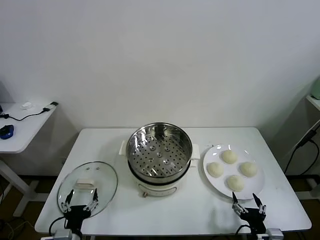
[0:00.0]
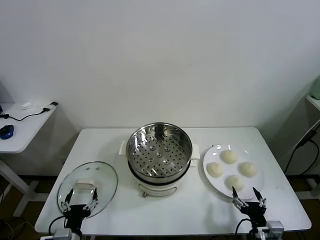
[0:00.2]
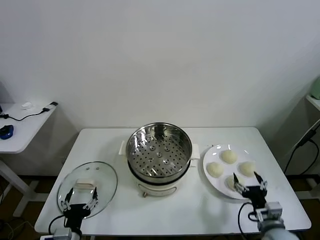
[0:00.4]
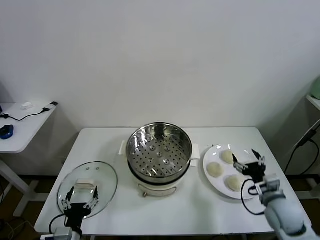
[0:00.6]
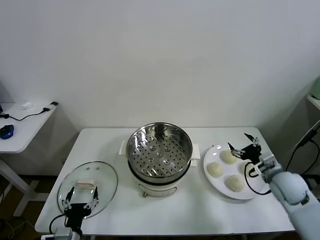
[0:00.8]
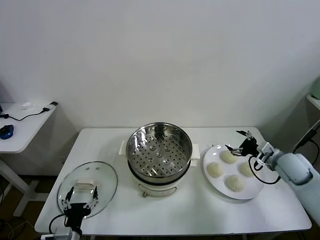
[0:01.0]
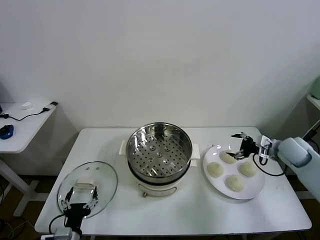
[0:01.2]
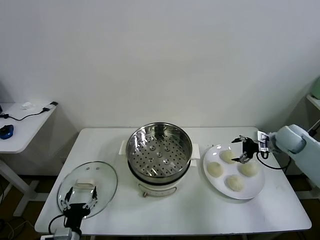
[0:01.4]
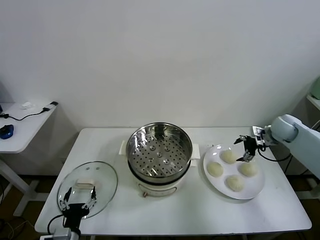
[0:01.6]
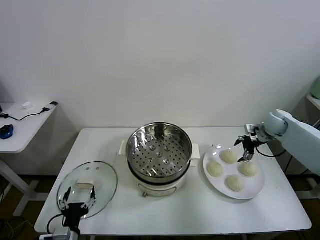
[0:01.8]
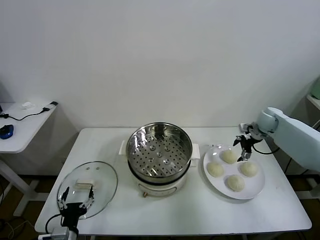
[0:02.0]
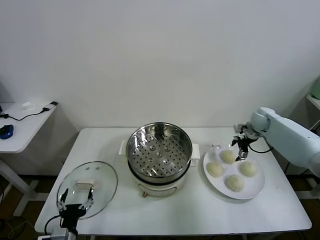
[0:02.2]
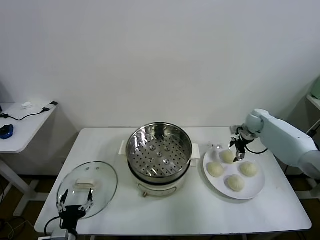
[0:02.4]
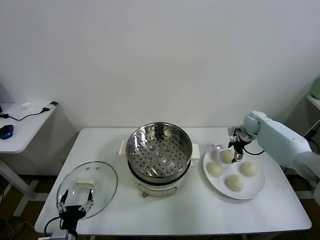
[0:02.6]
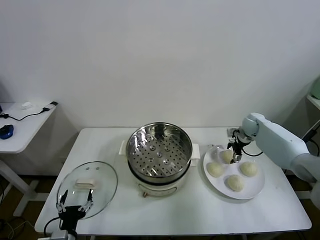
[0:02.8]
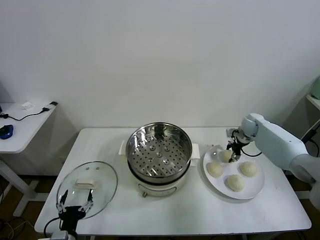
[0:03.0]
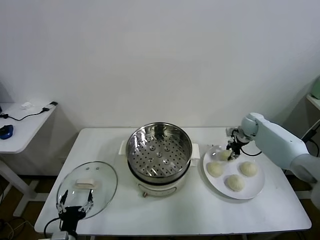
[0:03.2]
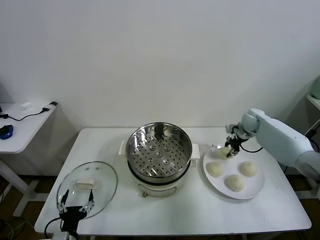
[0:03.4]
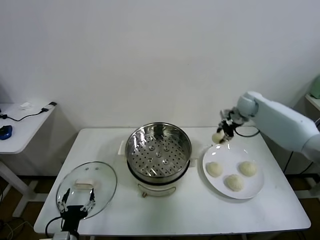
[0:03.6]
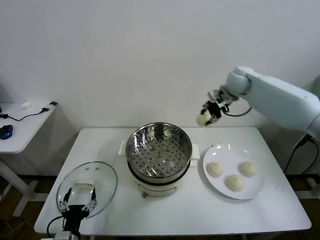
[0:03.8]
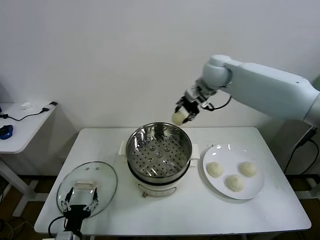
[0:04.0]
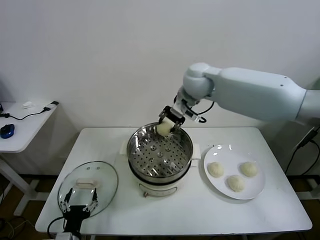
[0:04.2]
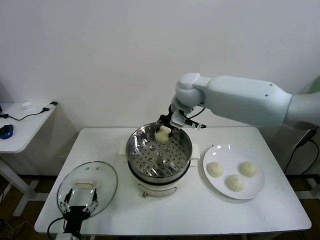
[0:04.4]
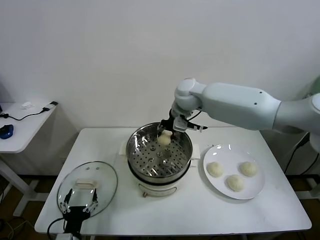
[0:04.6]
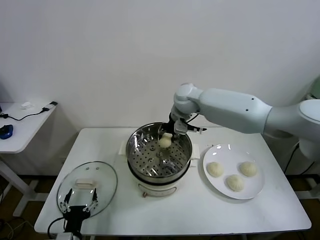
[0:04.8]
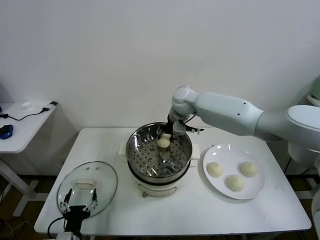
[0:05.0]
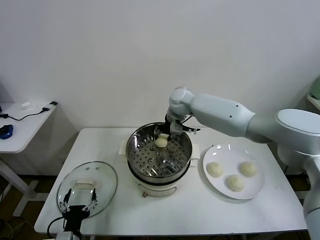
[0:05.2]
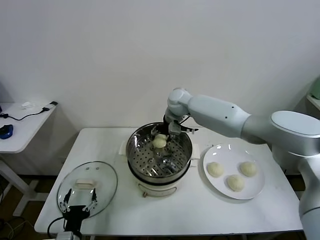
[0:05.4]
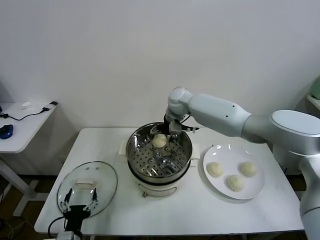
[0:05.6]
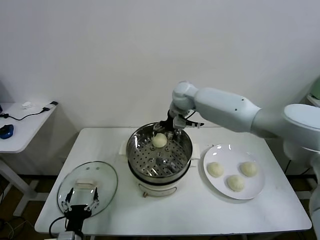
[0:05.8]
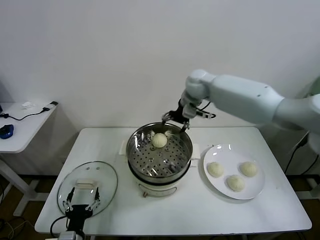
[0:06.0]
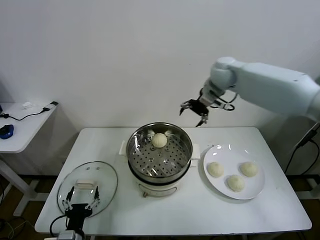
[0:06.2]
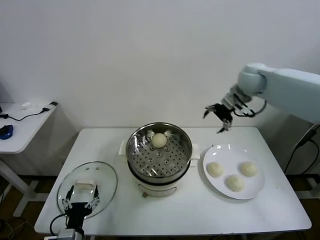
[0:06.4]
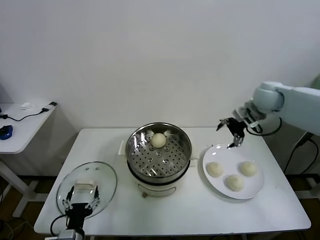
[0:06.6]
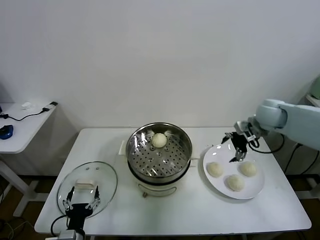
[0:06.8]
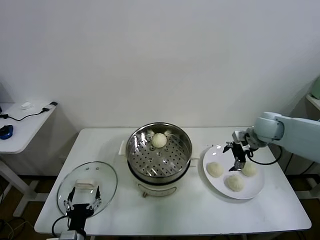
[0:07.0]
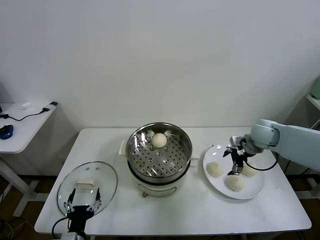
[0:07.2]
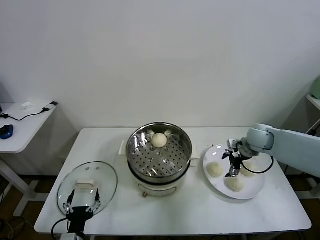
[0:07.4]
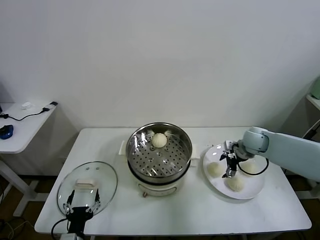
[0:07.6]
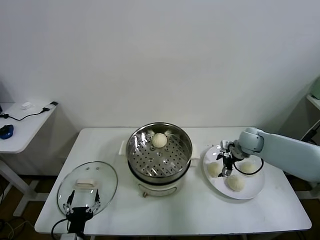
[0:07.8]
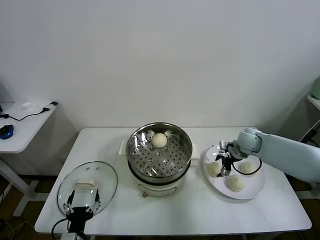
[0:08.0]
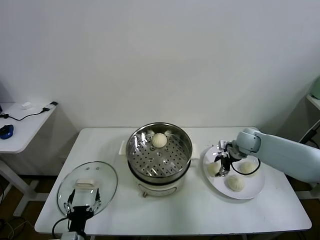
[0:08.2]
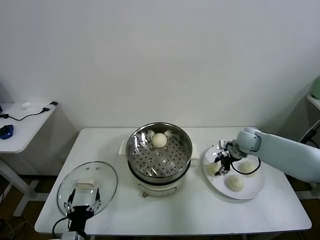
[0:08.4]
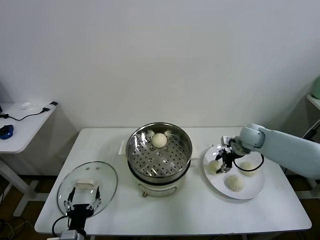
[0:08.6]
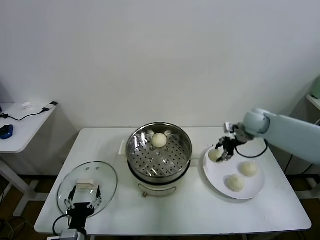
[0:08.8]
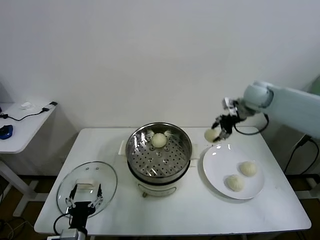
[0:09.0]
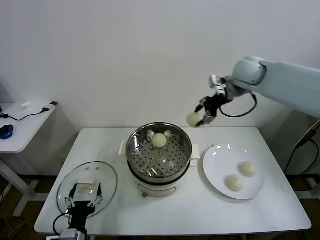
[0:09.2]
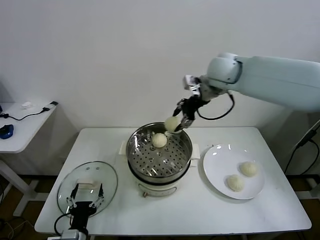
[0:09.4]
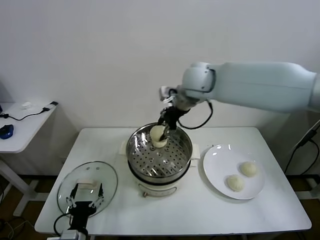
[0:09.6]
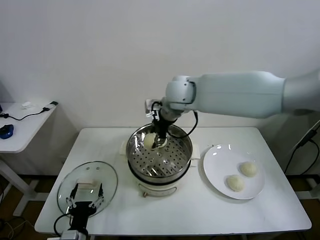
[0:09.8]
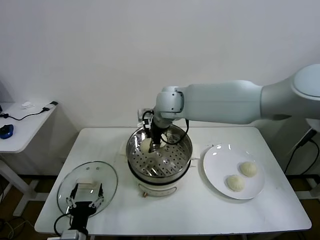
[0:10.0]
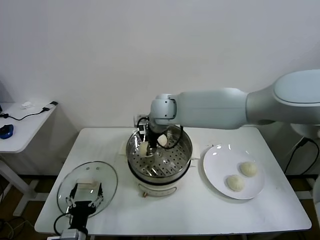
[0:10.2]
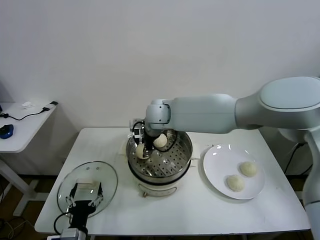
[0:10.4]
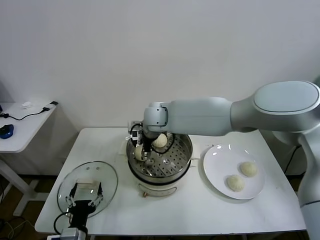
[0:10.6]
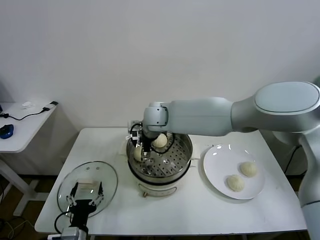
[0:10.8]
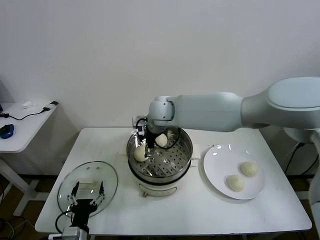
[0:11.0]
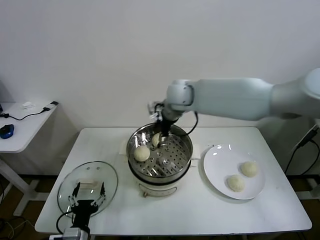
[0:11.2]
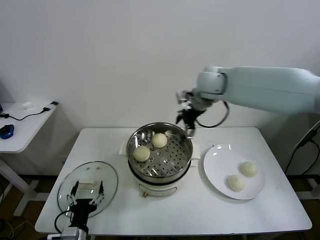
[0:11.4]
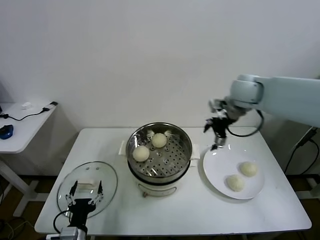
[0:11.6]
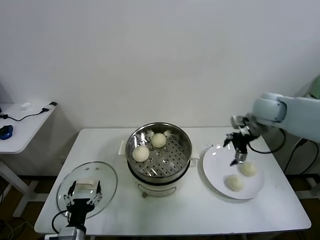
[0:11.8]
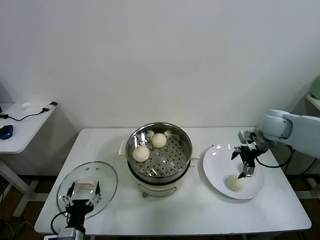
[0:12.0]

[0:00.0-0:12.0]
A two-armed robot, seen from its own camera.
Task of the whole recording: take steamed baozi put them in steamer.
Step, 0:00.0 to 0:03.0: Grasp the baozi in the plate with right gripper.
Step, 0:03.2 to 0:05.6: Place the baozi on the steamer with right gripper.
Step, 0:05.8 to 0:08.2: Grasp the baozi in the plate with right gripper.
Step, 0:08.6 to 0:10.8: Place the baozi on the steamer with right gripper.
0:01.6 to 0:03.0: The right gripper shifts roughly 10 cm forward, downward and to the left, and closes.
0:03.0 to 0:04.4: The right gripper heads to the left and upward, covering approximately 35 cm.
0:04.4 to 0:06.0: The right gripper shifts some 10 cm to the right and forward, reaches some 10 cm downward, then returns, and opens its fingers.
0:06.0 to 0:07.6: The right gripper moves downward, to the right and backward, about 30 cm.
0:07.6 to 0:09.0: The right gripper goes some 20 cm upward, and closes its fingers.
0:09.0 to 0:10.4: The right gripper shifts approximately 30 cm to the left.
0:10.4 to 0:12.0: The right gripper moves to the right, approximately 40 cm, and opens up.

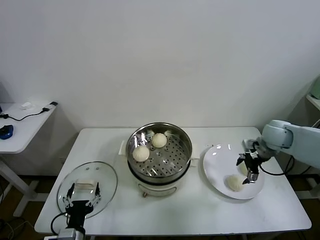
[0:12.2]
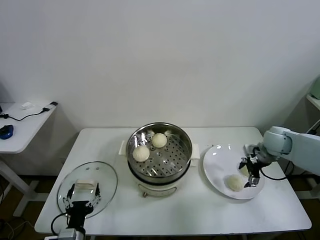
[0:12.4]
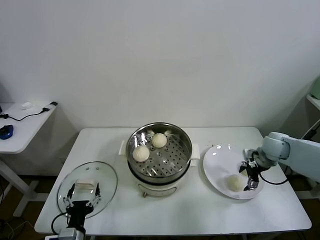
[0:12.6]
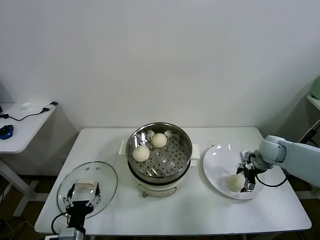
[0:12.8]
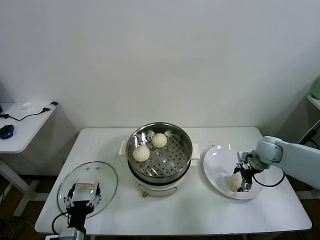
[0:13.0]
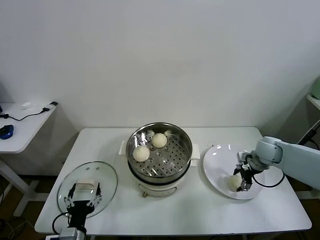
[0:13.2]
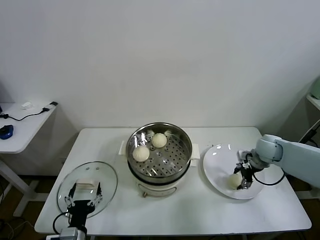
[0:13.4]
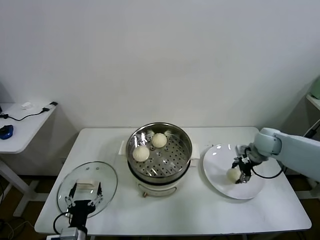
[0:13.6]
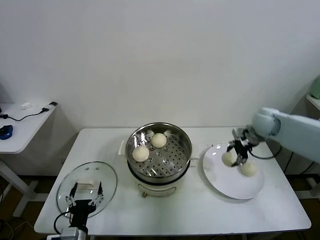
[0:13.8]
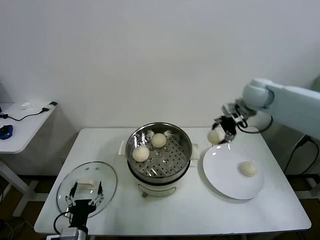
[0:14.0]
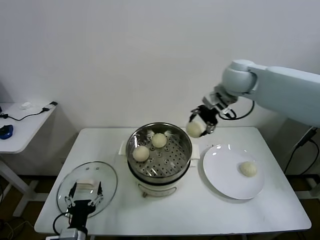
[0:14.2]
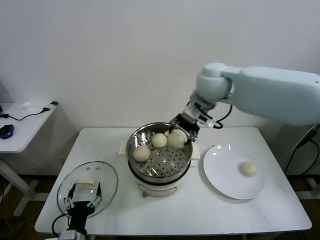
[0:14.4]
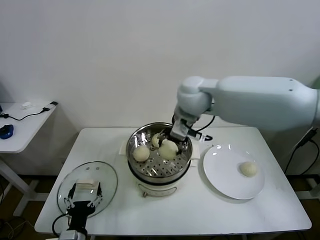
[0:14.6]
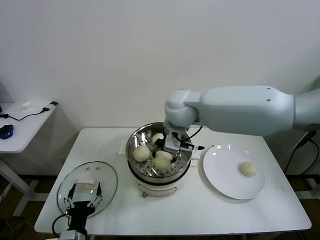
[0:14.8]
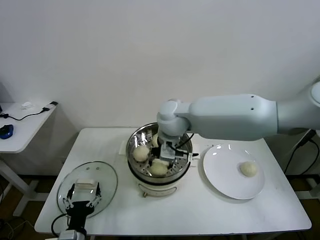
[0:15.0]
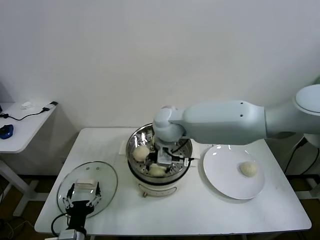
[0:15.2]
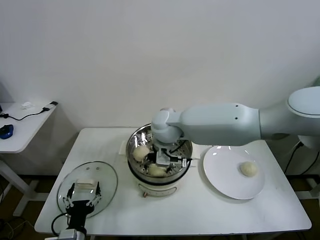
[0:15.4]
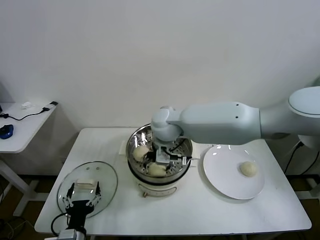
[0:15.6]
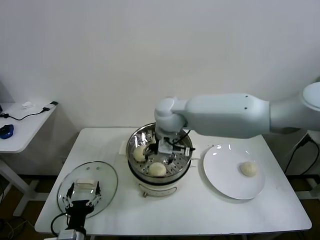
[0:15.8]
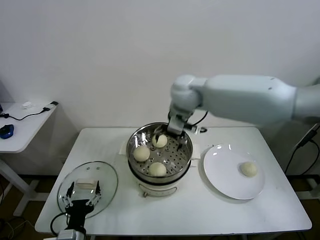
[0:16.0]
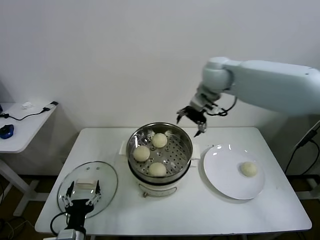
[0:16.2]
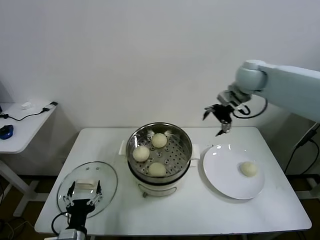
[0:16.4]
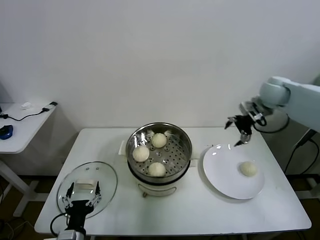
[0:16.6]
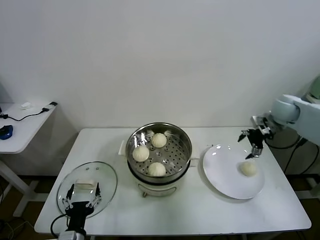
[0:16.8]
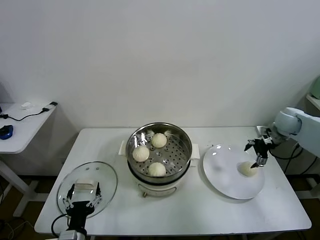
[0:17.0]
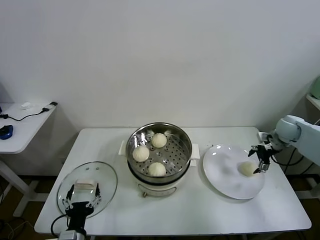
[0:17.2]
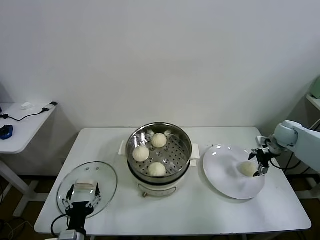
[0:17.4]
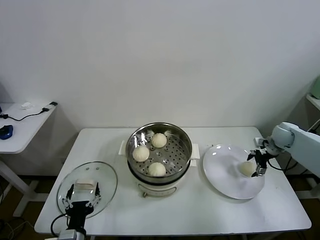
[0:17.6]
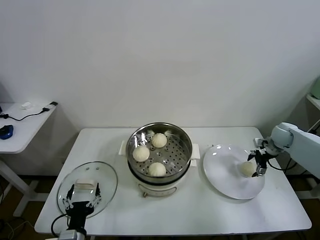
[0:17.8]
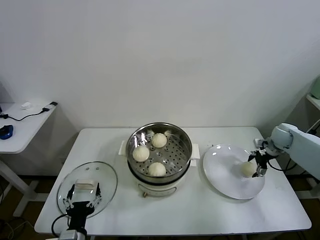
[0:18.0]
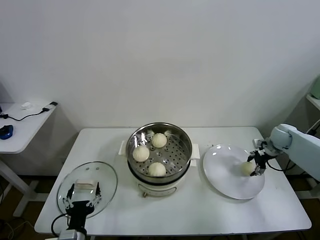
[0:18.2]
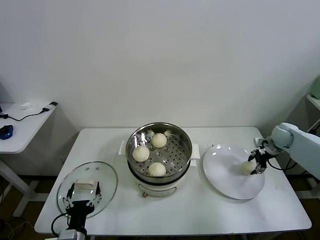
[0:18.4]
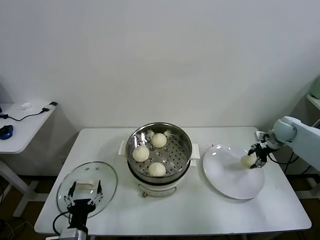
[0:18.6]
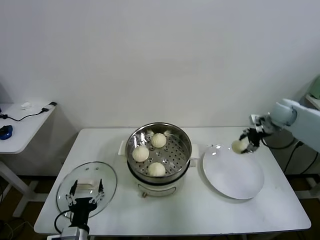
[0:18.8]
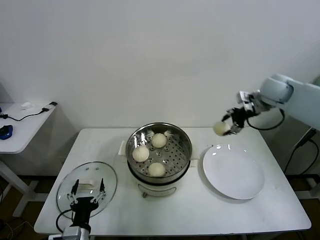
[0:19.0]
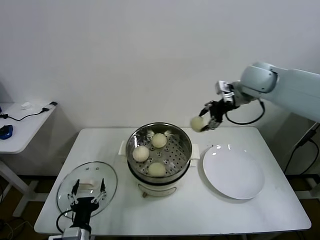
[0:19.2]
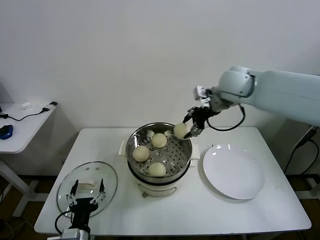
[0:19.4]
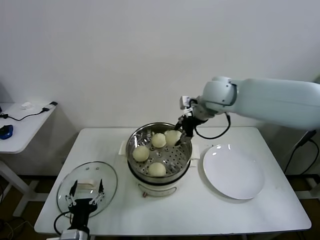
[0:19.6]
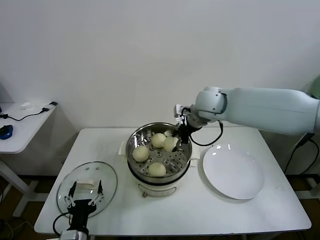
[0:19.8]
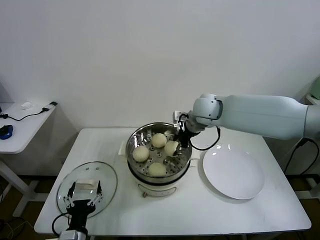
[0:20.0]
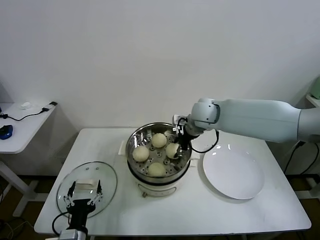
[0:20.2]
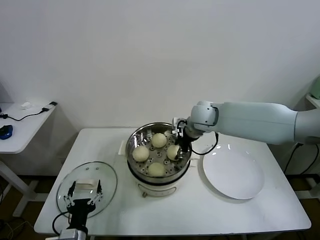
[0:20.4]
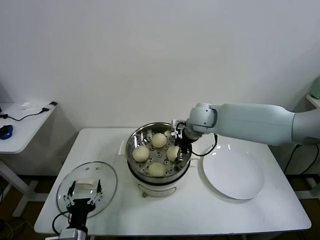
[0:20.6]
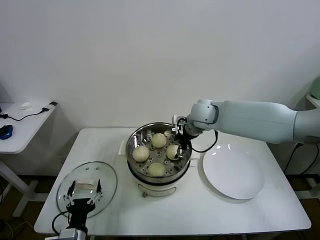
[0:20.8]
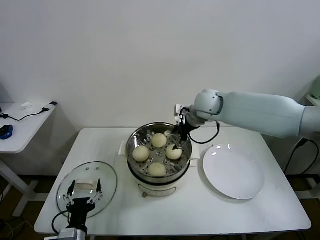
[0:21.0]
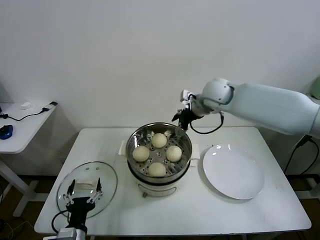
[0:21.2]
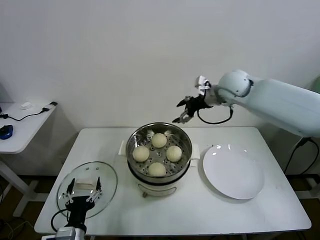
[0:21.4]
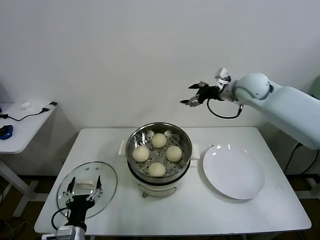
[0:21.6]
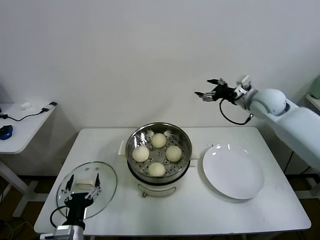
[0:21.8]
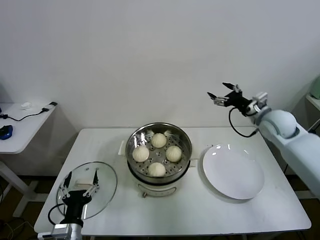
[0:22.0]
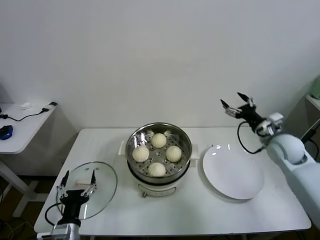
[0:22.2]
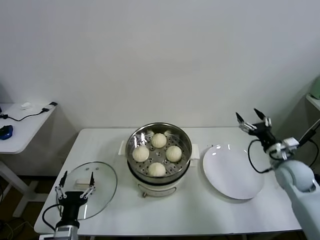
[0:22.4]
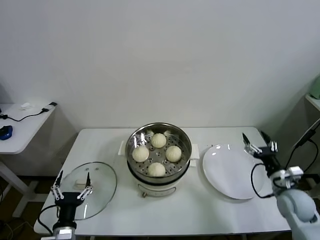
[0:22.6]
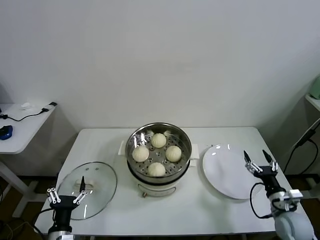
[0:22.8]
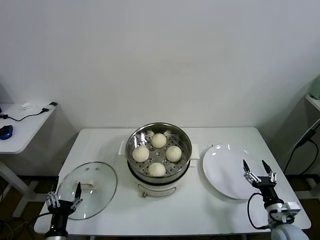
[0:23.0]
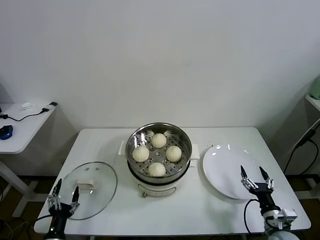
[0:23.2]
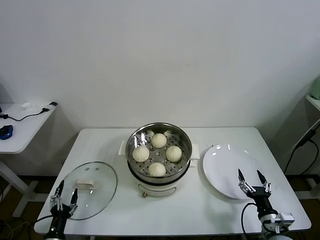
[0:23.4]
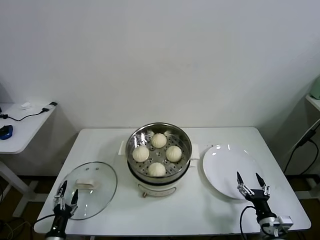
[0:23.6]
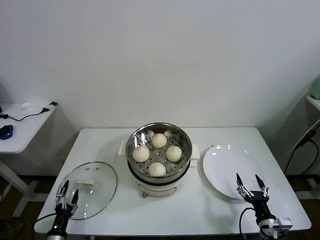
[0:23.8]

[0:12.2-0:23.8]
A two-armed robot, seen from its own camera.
Task of the whole recording: take steamed baozi put them in steamer.
Step, 0:13.4 to 0:15.6: Place the baozi on the steamer with right gripper.
Step, 0:15.8 to 0:18.0: Grasp the baozi in the plate with right gripper.
Step, 0:18.2 to 0:20.8: Place the baozi on the steamer with right gripper.
0:12.2 to 0:13.6: The right gripper closes its fingers.
0:13.6 to 0:15.0: The right gripper heads to the left, covering approximately 35 cm.
0:15.0 to 0:16.6: The right gripper goes roughly 35 cm to the right, and opens its fingers.
0:16.6 to 0:18.0: The right gripper moves downward and to the right, about 20 cm.
0:18.0 to 0:19.4: The right gripper travels to the left and upward by roughly 35 cm, and closes up.
0:19.4 to 0:21.0: The right gripper shifts approximately 10 cm downward, and opens up.
0:21.0 to 0:22.4: The right gripper heads to the right, backward and downward, covering approximately 35 cm.
0:22.4 to 0:23.8: The right gripper is displaced backward and downward by approximately 25 cm, while the left gripper is displaced downward and to the left by some 15 cm.
